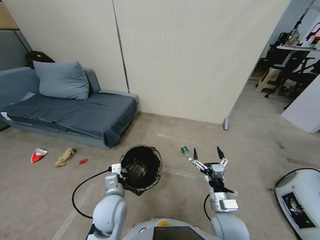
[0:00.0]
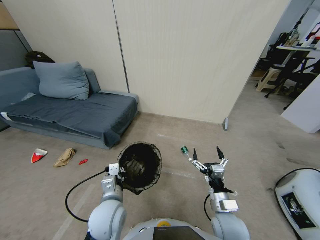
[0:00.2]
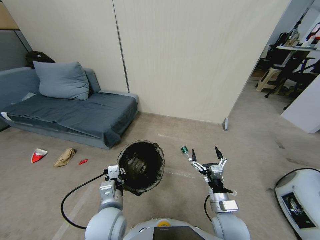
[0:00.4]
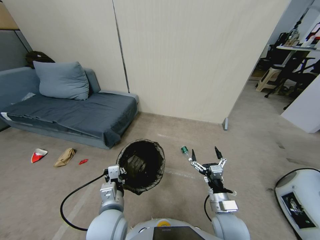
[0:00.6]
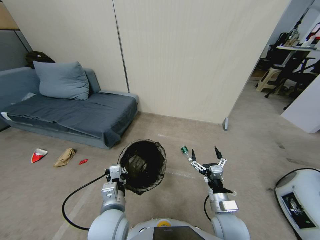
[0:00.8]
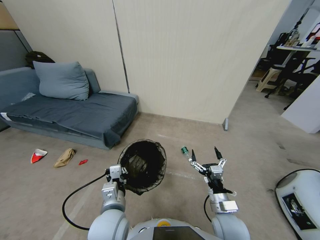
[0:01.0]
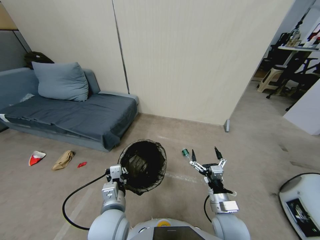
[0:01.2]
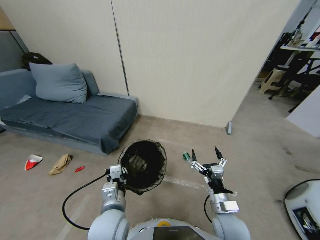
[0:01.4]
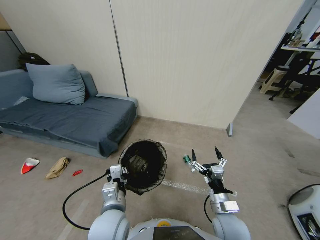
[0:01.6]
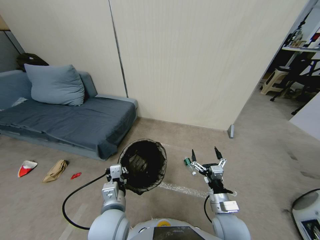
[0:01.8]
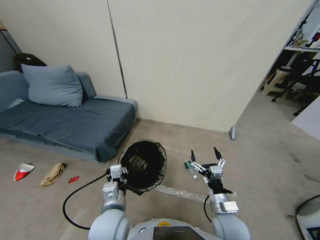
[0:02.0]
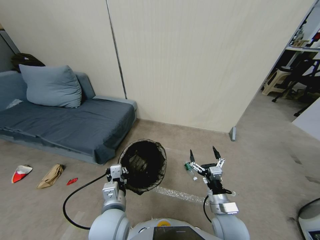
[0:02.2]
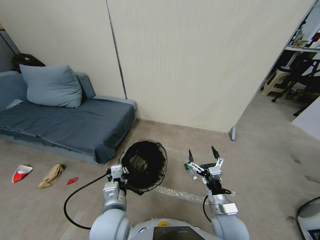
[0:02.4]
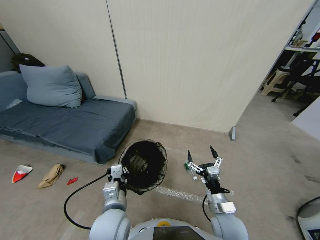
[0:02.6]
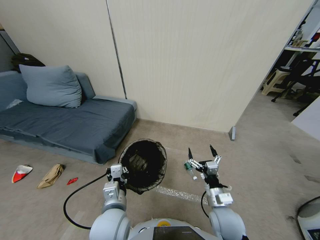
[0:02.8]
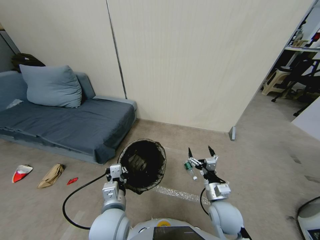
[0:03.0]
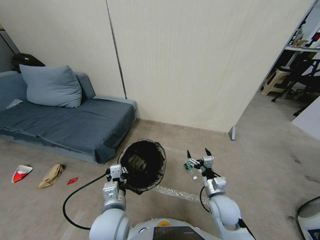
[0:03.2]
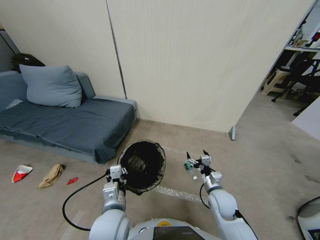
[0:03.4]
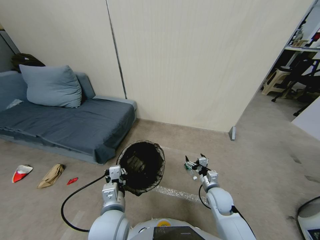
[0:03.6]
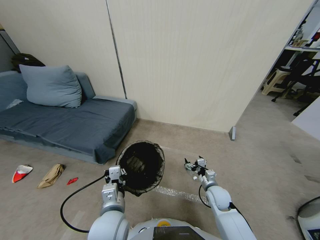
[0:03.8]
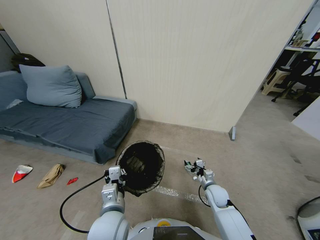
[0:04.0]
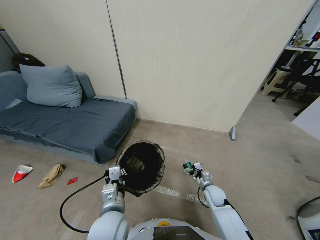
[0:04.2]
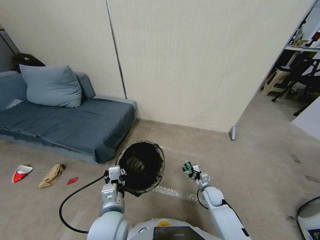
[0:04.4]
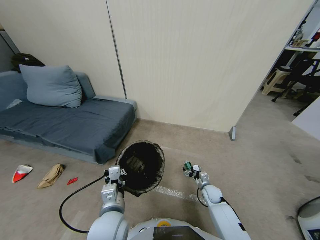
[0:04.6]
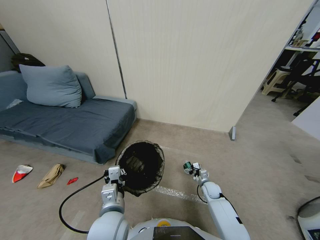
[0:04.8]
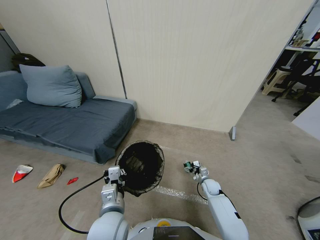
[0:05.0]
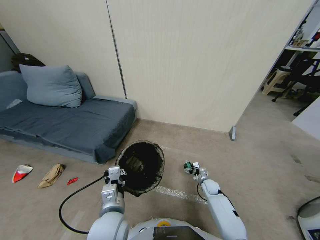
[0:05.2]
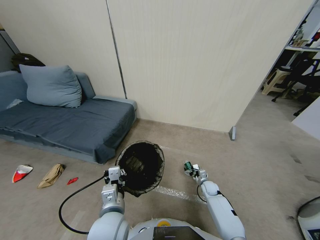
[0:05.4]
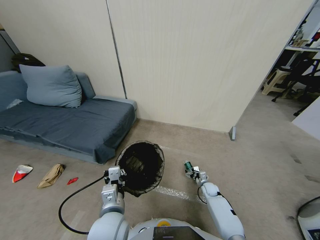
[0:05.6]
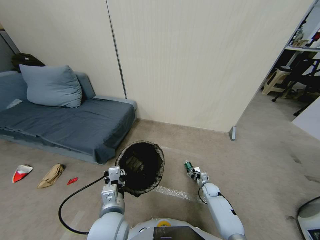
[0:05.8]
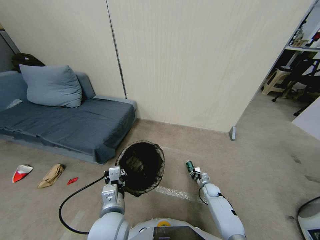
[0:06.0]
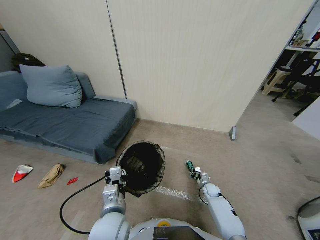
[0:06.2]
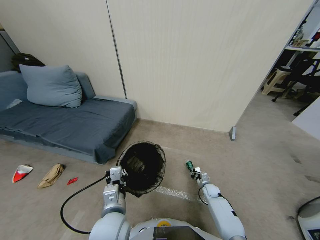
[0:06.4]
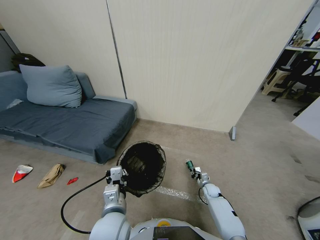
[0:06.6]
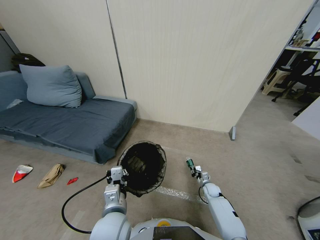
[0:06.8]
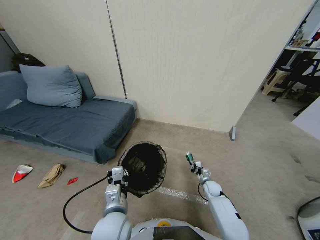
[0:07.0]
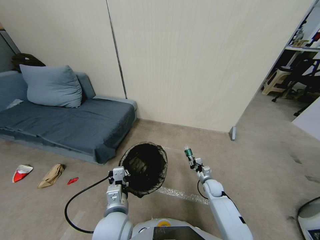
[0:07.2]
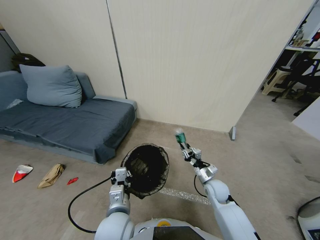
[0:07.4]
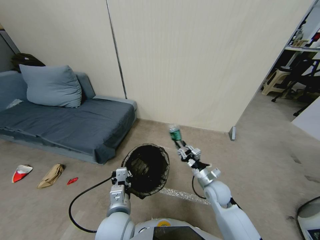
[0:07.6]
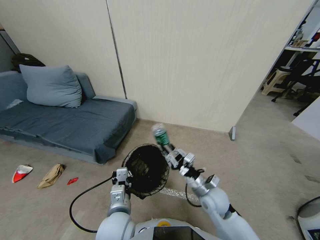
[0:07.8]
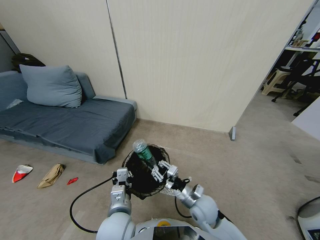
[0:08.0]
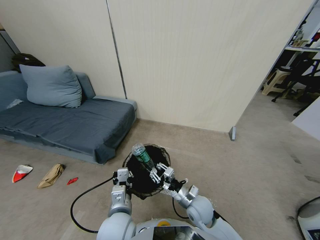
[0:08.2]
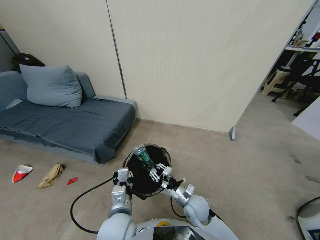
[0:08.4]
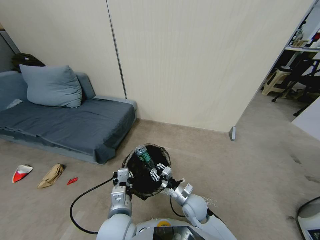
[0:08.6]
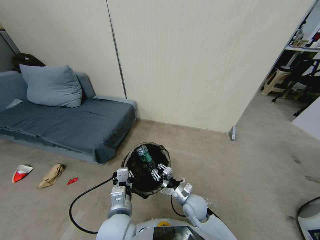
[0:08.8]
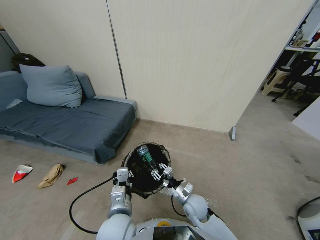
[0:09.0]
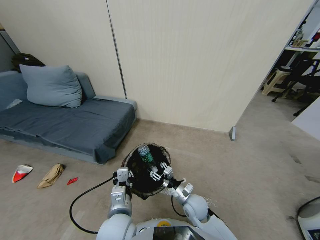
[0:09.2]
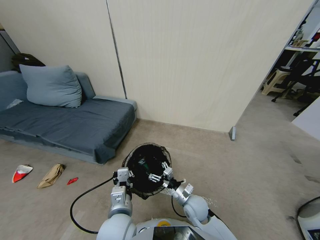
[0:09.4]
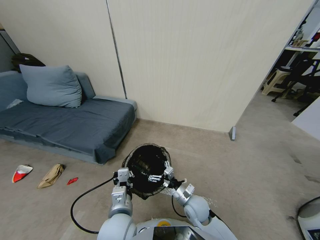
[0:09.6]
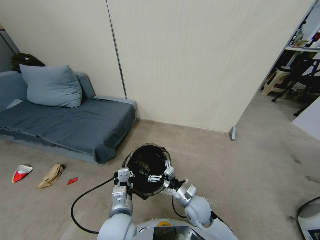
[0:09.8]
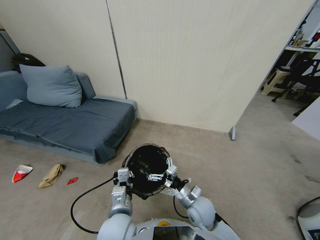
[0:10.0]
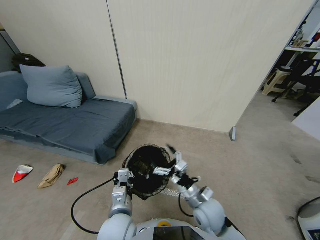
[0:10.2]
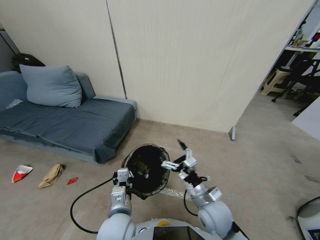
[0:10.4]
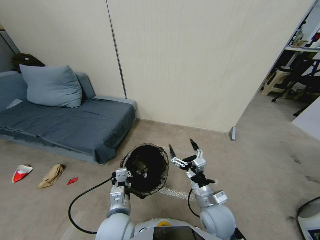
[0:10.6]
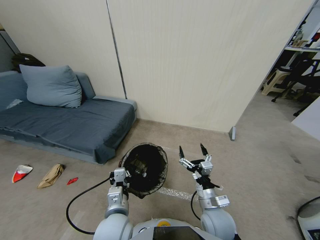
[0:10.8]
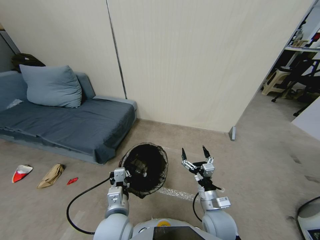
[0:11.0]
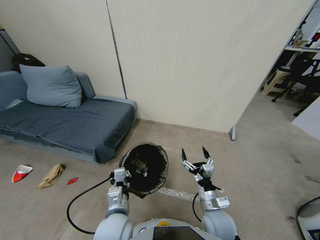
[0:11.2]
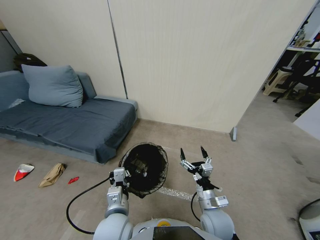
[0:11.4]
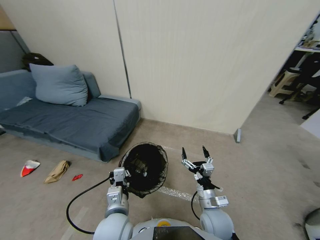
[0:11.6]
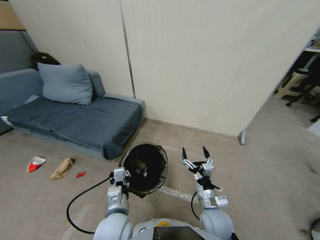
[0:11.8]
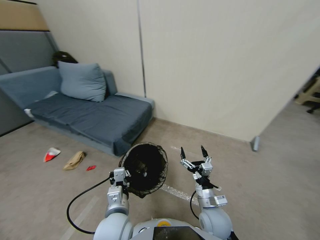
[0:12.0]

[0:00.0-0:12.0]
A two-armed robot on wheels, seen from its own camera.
Task of the whole recording: Pick up the trash bin, then pick up the garbage from the floor and place it into the trash bin.
0:00.0 to 0:01.6: The grippers make only small movements.
0:01.6 to 0:03.0: The right gripper shifts some 5 cm forward.
0:03.0 to 0:04.4: The right gripper shifts some 20 cm downward and forward.
0:04.4 to 0:06.0: The right gripper moves downward, about 5 cm, and closes.
0:06.0 to 0:07.6: The right gripper goes about 25 cm upward and to the left.
0:07.6 to 0:09.0: The right gripper travels downward and to the left by about 10 cm.
0:09.0 to 0:10.4: The right gripper travels upward and backward by some 10 cm, and opens.

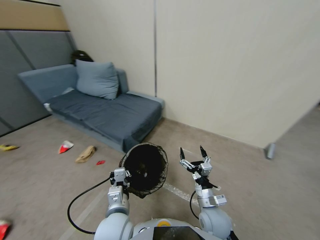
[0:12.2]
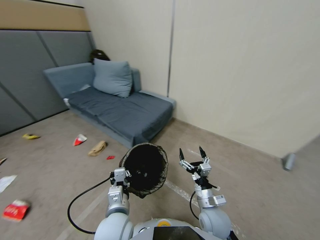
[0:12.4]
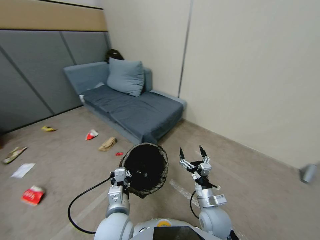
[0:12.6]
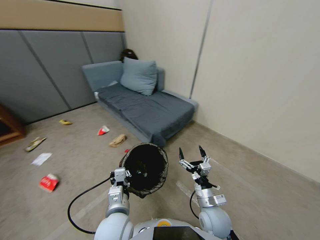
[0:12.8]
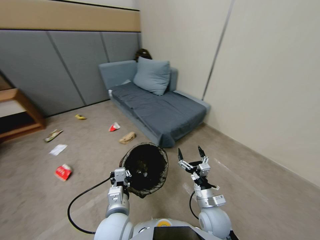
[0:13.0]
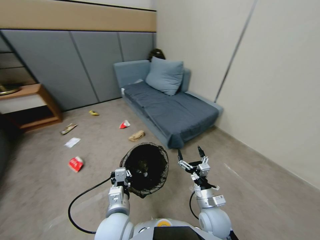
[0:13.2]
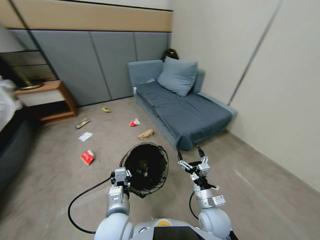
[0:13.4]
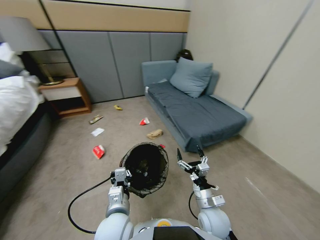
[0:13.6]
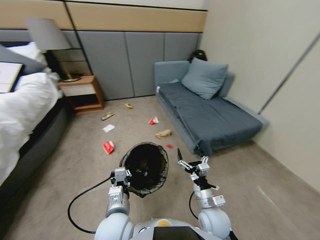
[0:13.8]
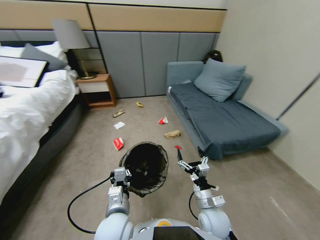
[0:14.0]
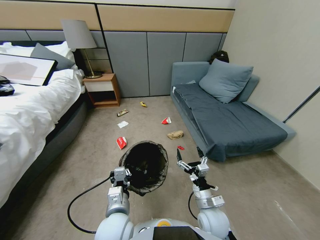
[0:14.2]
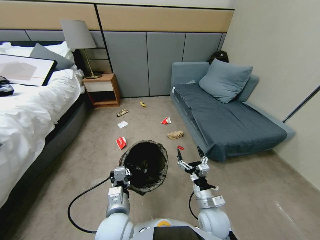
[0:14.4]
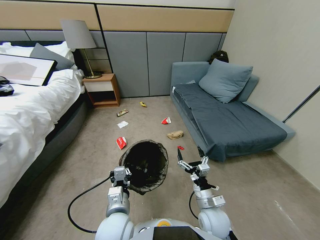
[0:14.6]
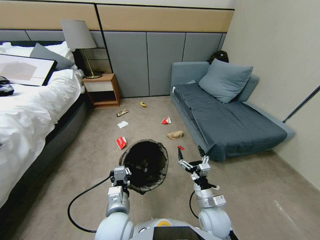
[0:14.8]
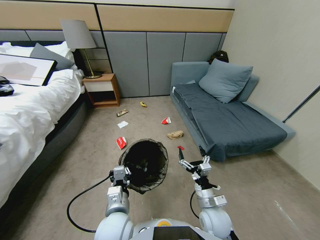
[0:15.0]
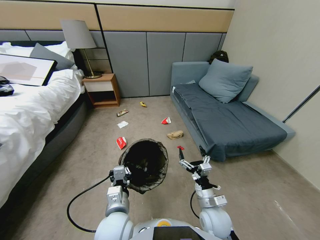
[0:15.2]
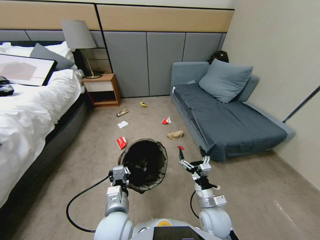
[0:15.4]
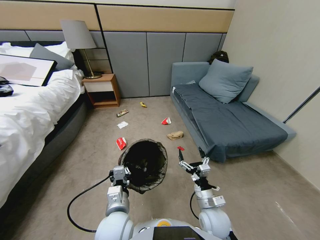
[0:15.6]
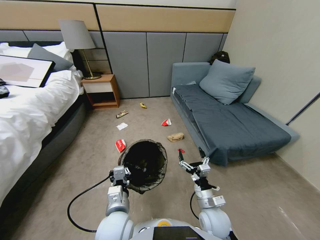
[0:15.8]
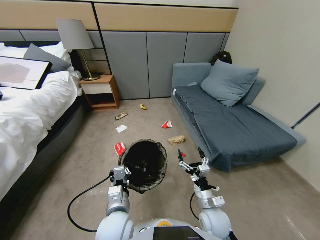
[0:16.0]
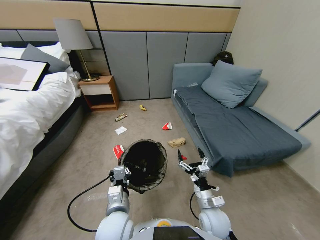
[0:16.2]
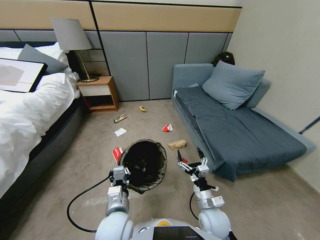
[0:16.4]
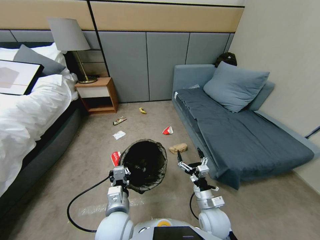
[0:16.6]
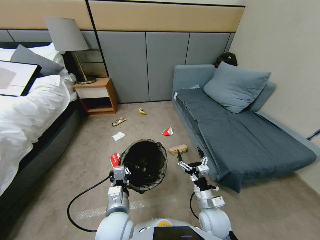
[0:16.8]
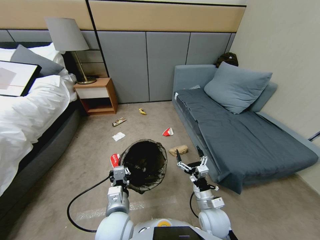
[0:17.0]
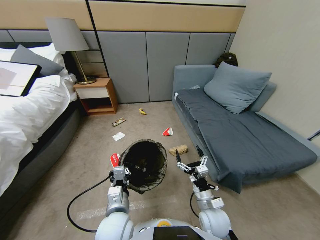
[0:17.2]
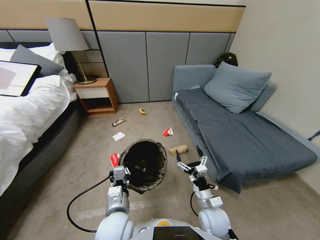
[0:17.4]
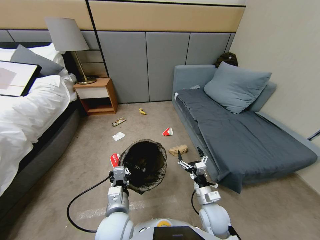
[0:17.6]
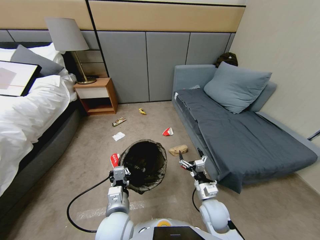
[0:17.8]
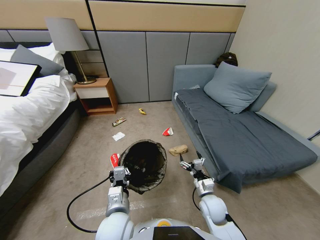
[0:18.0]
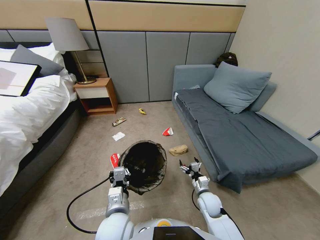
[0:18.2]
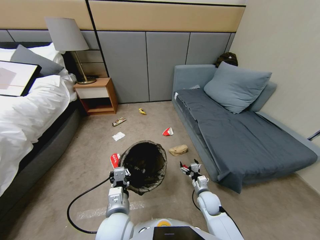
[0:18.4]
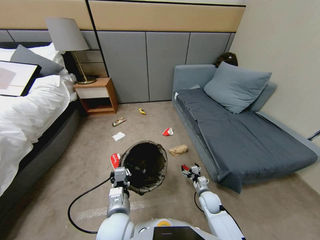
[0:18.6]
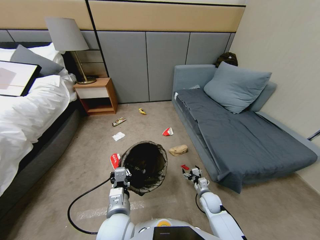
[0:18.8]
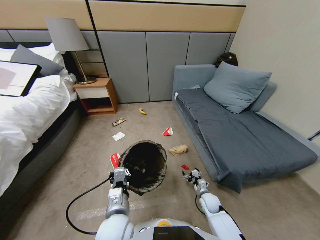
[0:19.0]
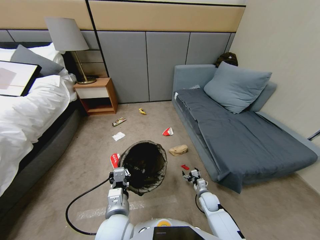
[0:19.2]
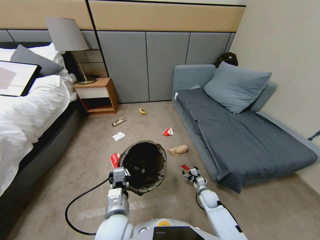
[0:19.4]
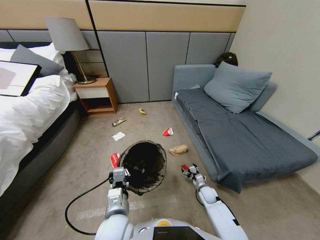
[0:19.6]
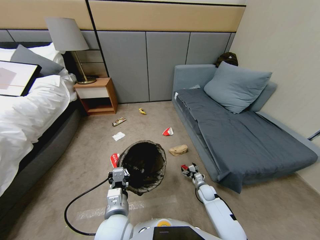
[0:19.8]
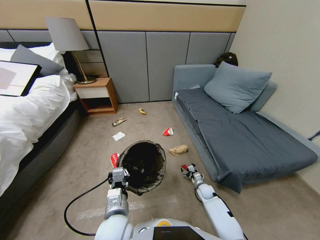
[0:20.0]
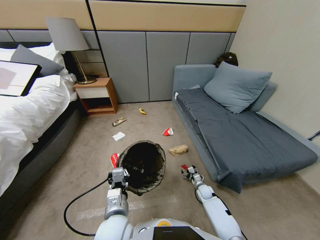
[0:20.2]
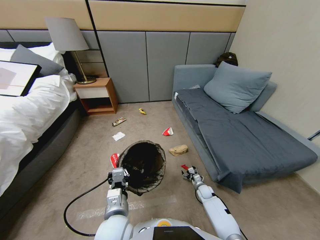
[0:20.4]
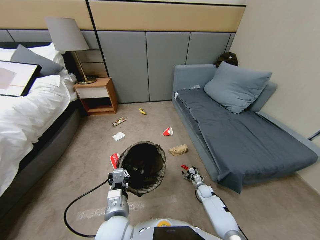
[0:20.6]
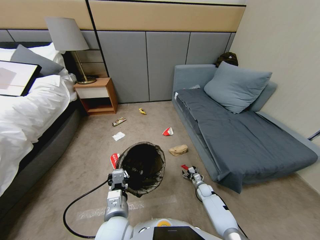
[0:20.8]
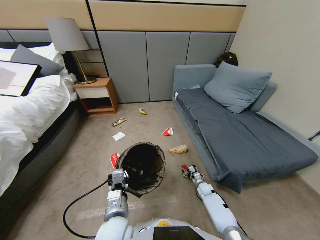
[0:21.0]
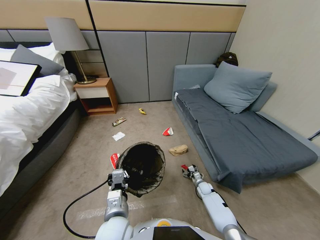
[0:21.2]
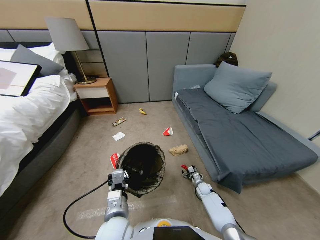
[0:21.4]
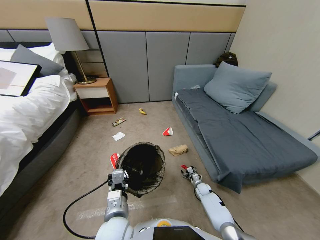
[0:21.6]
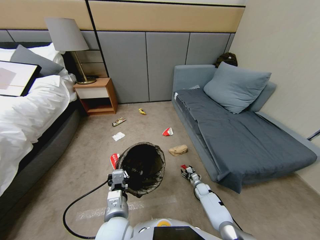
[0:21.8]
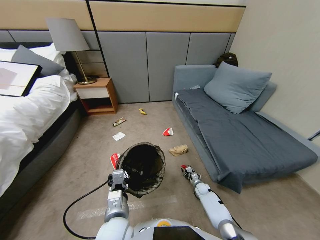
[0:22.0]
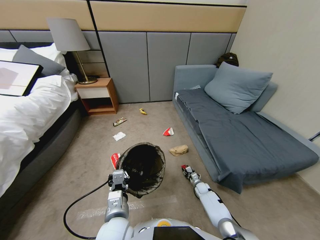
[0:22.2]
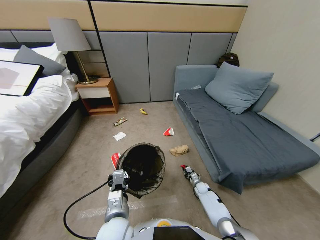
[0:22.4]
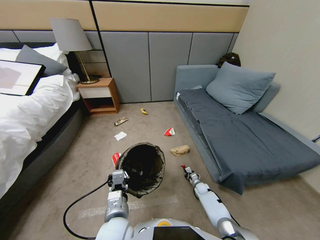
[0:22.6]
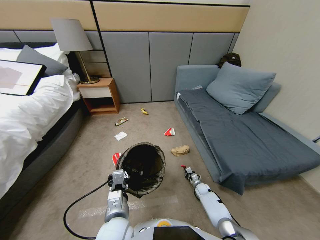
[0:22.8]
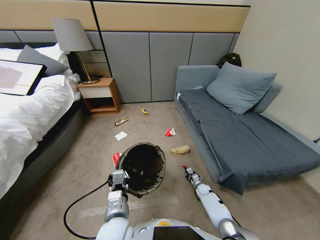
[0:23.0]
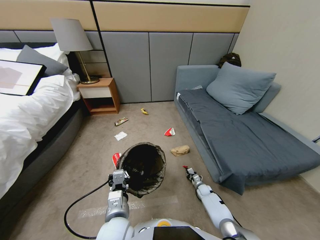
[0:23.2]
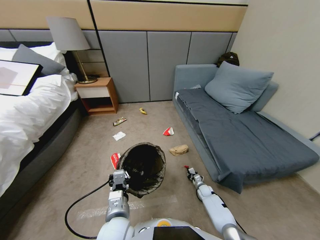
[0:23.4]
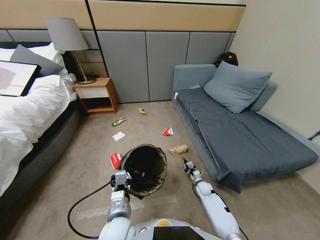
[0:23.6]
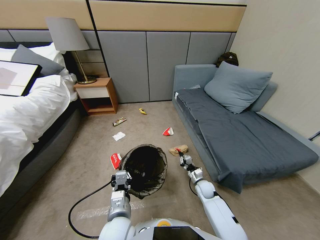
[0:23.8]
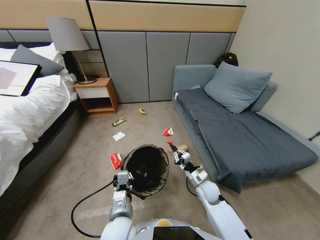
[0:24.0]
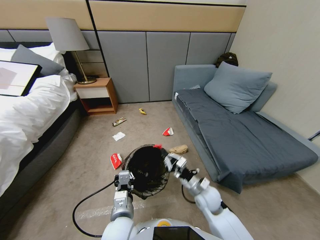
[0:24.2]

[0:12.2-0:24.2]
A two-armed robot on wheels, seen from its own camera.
Task of the whole recording: Pick up the trash bin, then pick up the garbage from the floor and place it into the trash bin.
0:16.6 to 0:18.2: The right gripper moves downward and forward, some 10 cm.
0:18.2 to 0:19.8: The right gripper travels downward, forward and to the right by roughly 15 cm.
0:19.8 to 0:21.2: The right gripper ends up roughly 5 cm from where it was.
0:21.2 to 0:22.6: The right gripper closes its fingers.
0:22.6 to 0:24.2: The right gripper moves upward, backward and to the left, some 35 cm.
